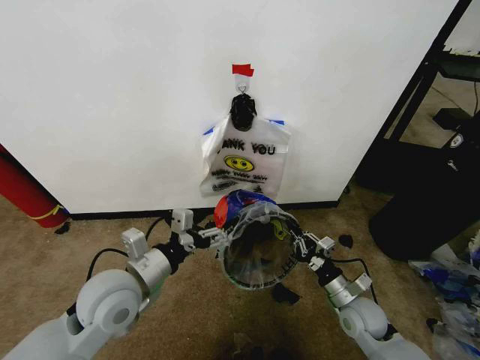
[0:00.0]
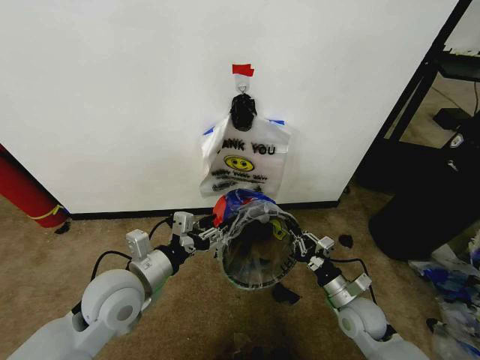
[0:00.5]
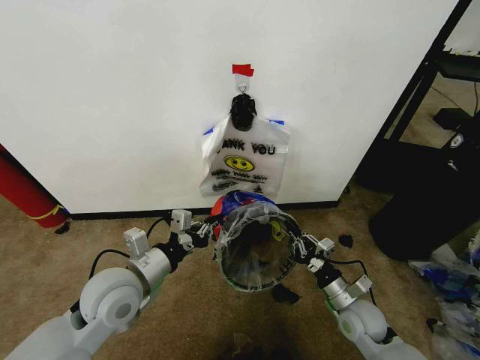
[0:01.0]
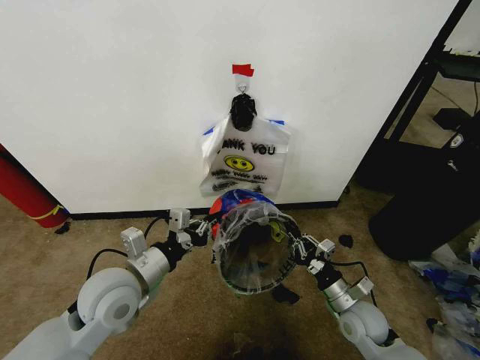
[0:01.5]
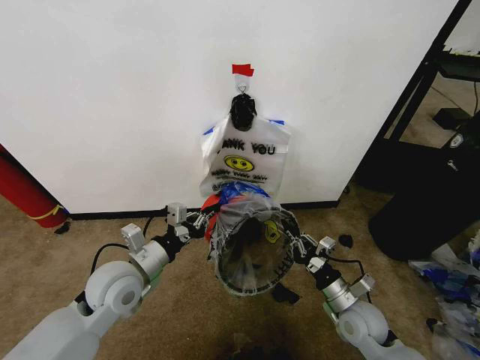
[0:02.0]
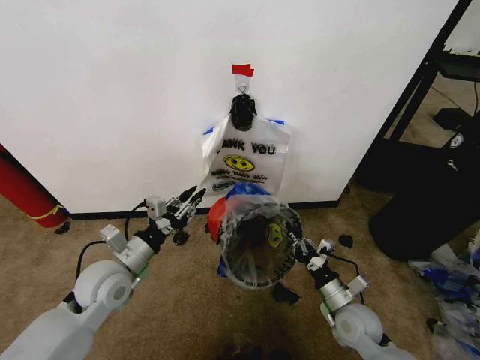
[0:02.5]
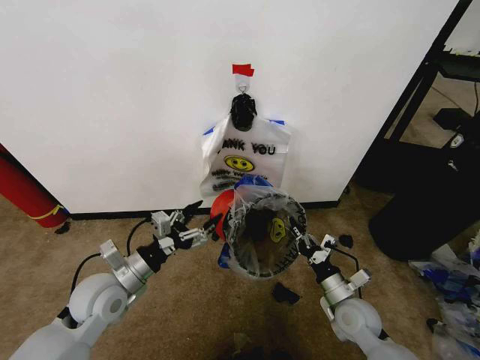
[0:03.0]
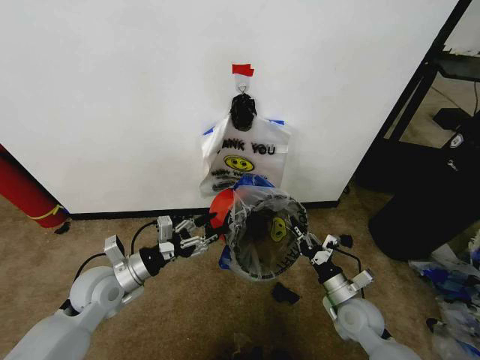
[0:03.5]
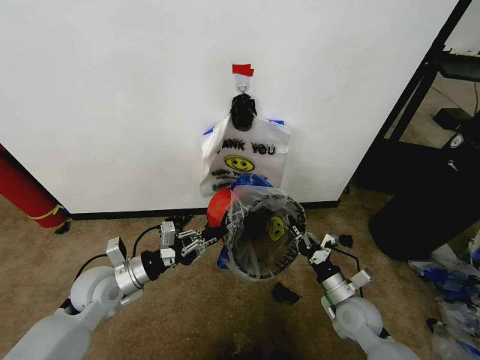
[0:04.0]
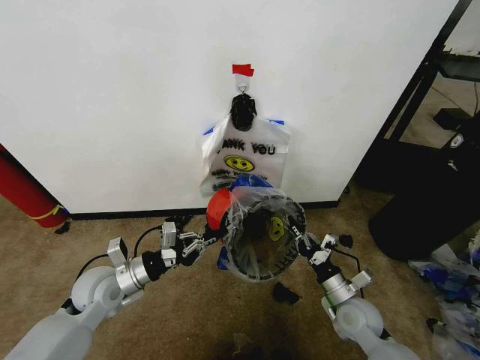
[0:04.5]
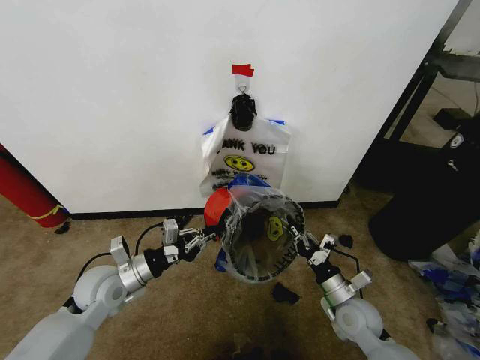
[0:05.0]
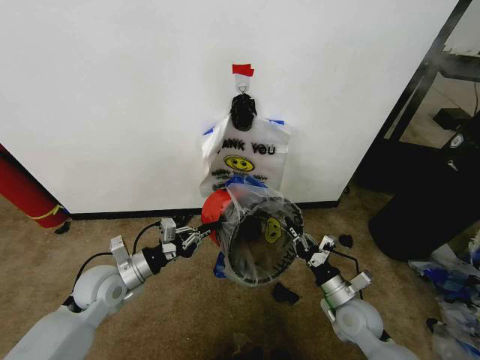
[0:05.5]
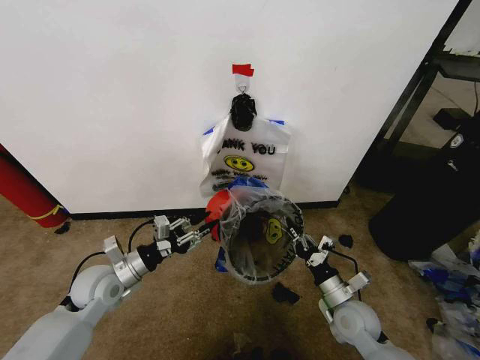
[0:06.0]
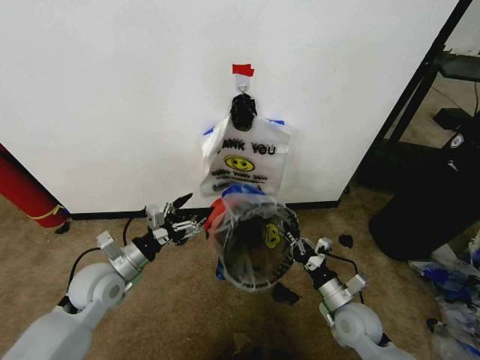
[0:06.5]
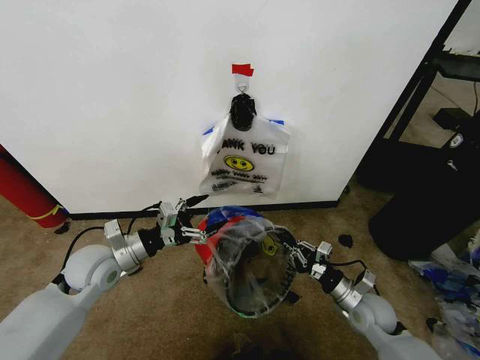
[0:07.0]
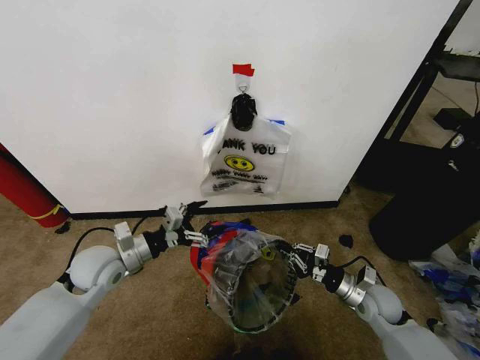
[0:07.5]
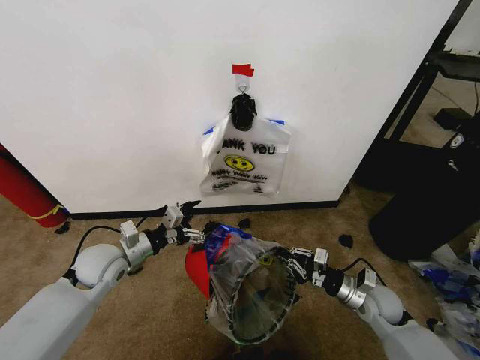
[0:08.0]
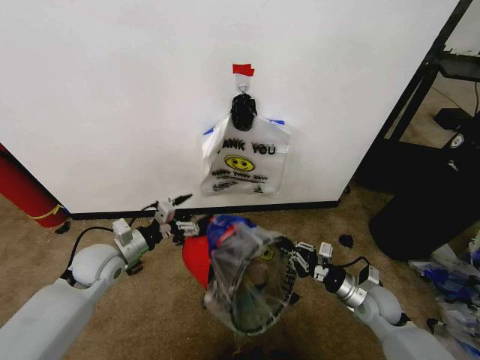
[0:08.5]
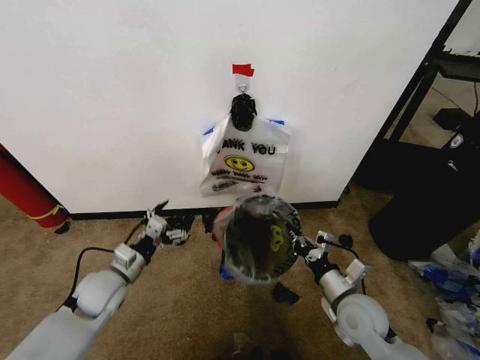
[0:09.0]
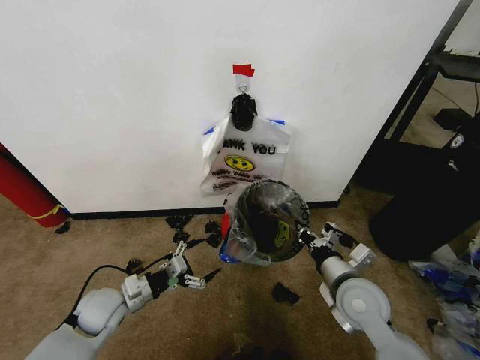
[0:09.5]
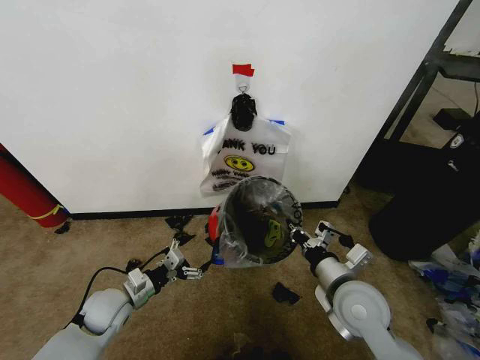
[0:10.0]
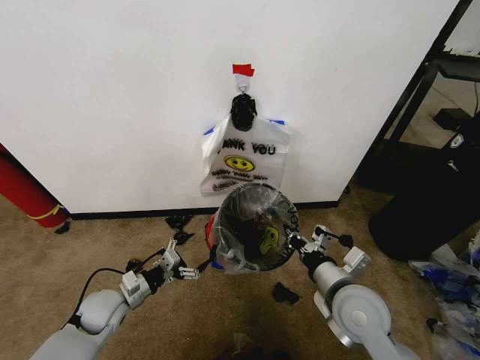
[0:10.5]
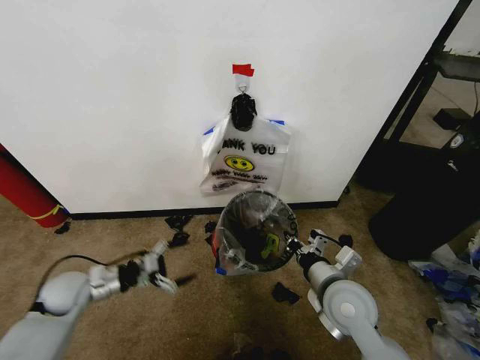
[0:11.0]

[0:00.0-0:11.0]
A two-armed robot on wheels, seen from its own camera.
Task of the whole recording: Pick up the garbage bag from the wall and place it over the trash bin.
0:00.0 to 0:02.0: The left gripper shifts by roughly 5 cm, and closes up.
0:02.0 to 0:03.5: The left gripper goes approximately 5 cm to the left, and opens up.
0:03.5 to 0:05.5: The left gripper closes up.
0:05.5 to 0:07.5: The right gripper goes some 5 cm to the right, while the left gripper opens.
0:07.5 to 0:09.0: The right gripper moves to the left and upward, about 10 cm. The left gripper heads downward, covering roughly 5 cm.
0:09.0 to 0:11.0: The left gripper travels to the left by about 10 cm. Meanwhile the right gripper shifts approximately 5 cm upward.

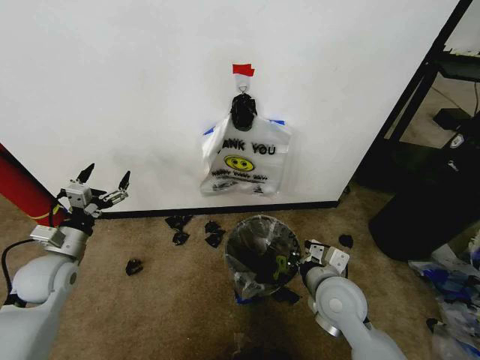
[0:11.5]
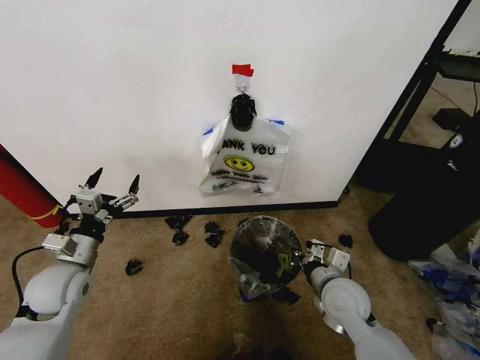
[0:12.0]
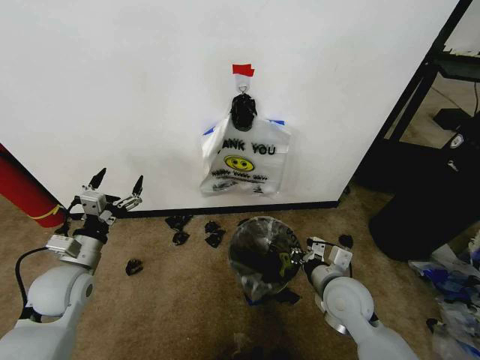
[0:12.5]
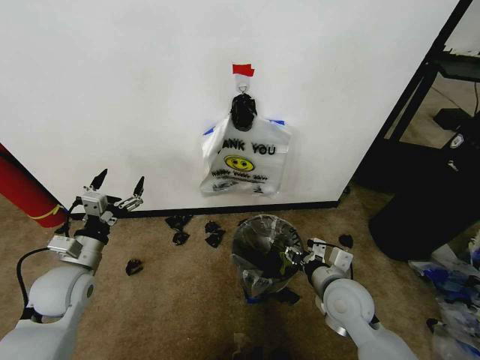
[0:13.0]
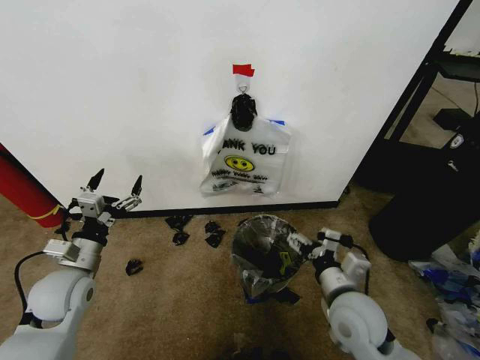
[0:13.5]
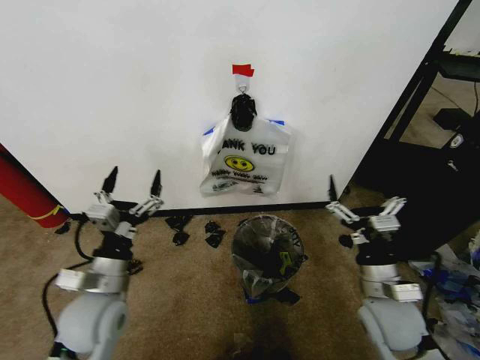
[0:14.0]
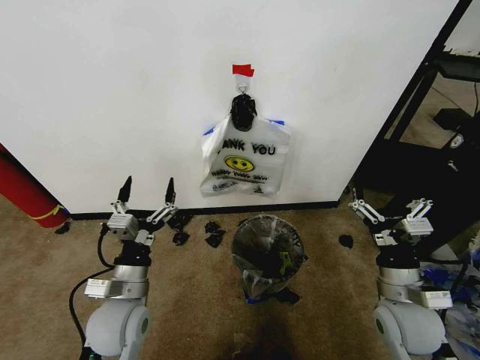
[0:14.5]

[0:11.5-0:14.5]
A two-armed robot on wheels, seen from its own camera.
Task of the whole recording: Pick up the garbage bag from the wall and place it over the trash bin.
0:11.5 to 0:13.0: The right gripper opens up. The left gripper changes place by approximately 5 cm.
0:13.0 to 0:14.5: The right gripper is displaced to the right by approximately 10 cm, and opens its fingers. The left gripper moves to the right and backward, approximately 15 cm.

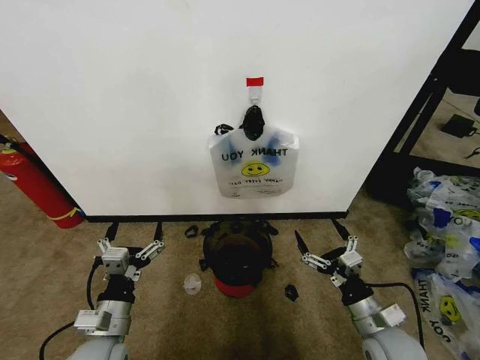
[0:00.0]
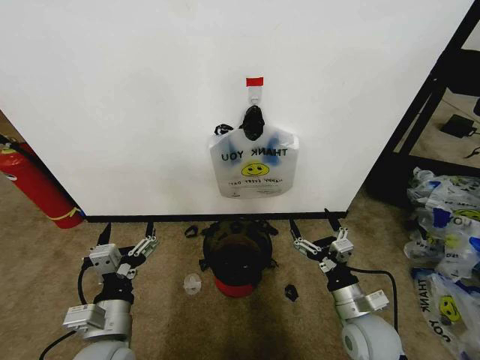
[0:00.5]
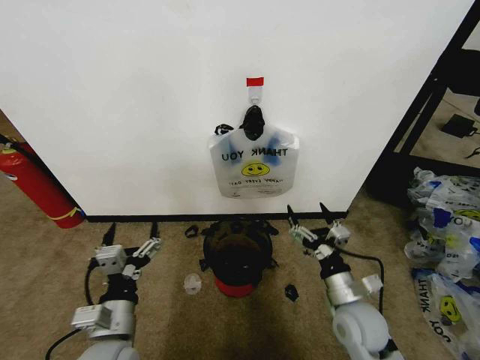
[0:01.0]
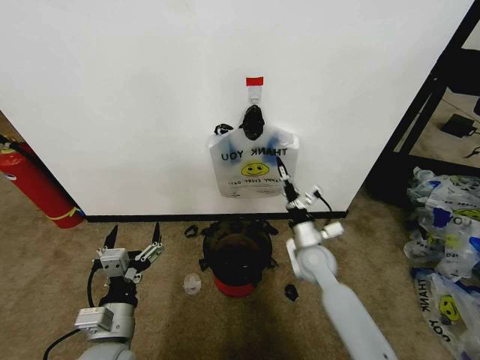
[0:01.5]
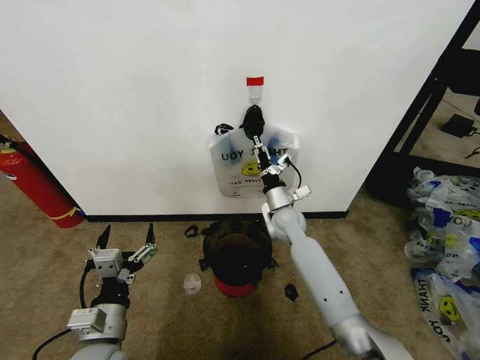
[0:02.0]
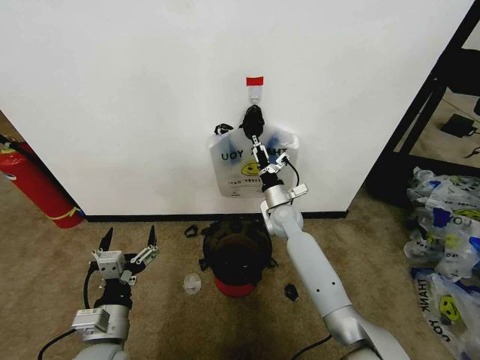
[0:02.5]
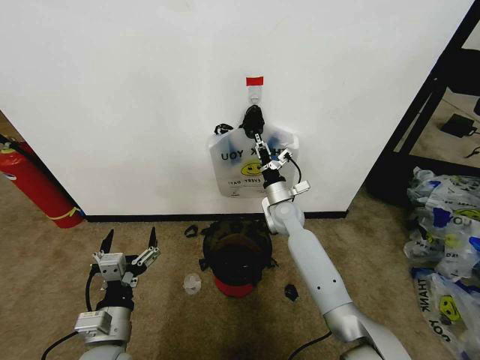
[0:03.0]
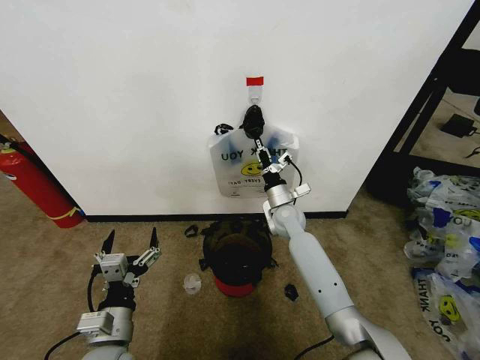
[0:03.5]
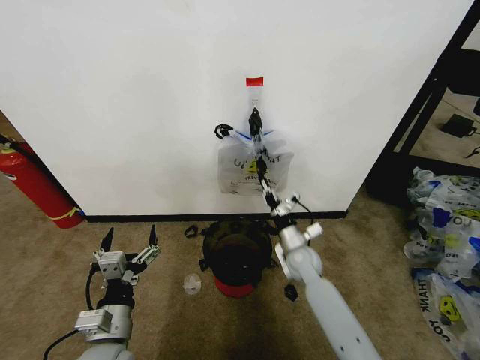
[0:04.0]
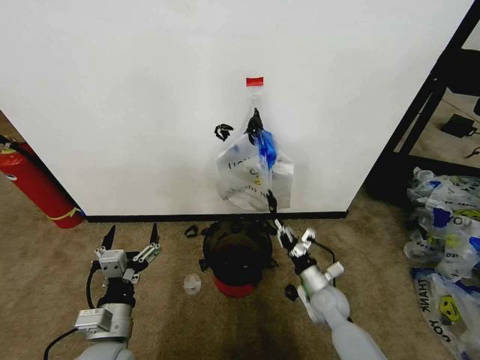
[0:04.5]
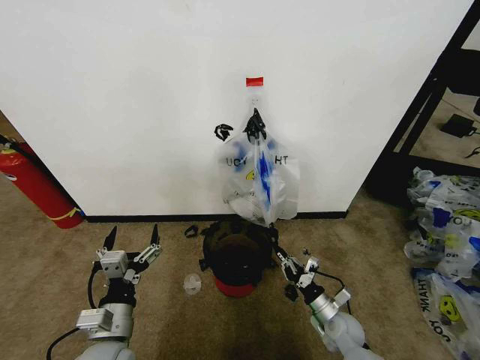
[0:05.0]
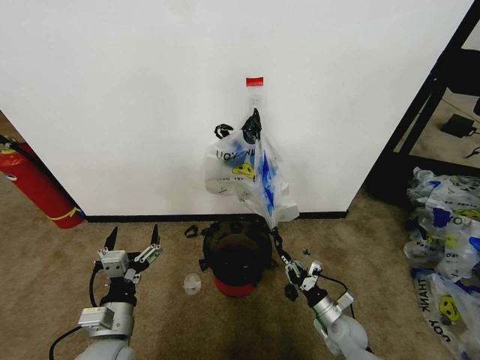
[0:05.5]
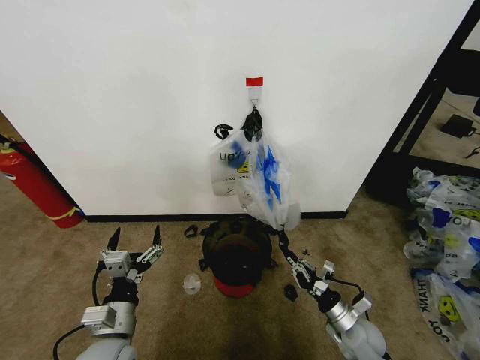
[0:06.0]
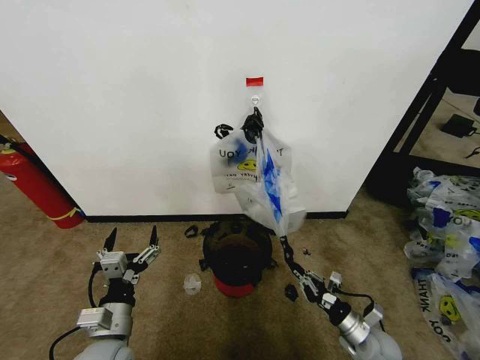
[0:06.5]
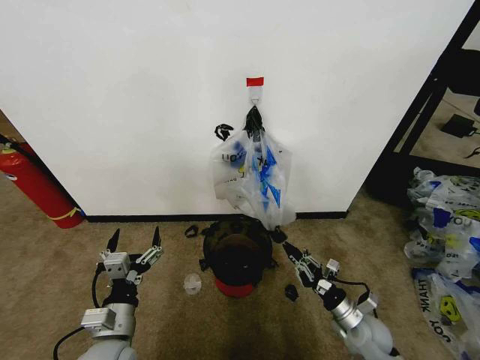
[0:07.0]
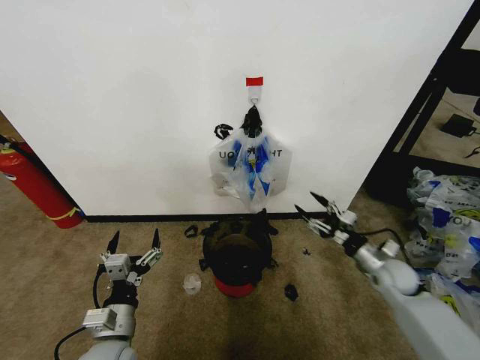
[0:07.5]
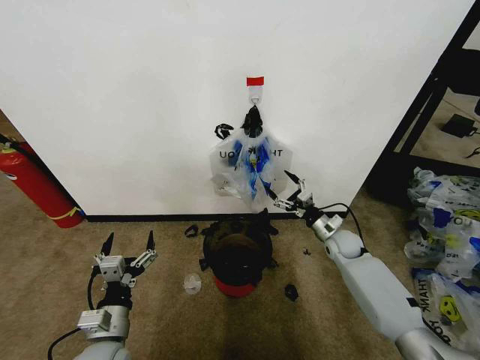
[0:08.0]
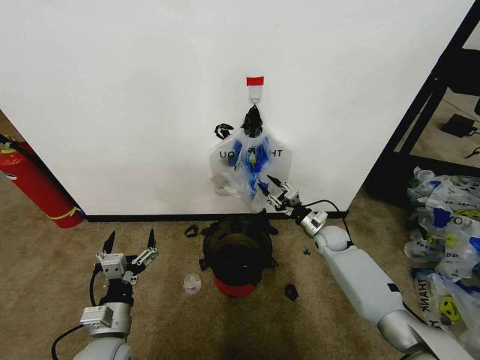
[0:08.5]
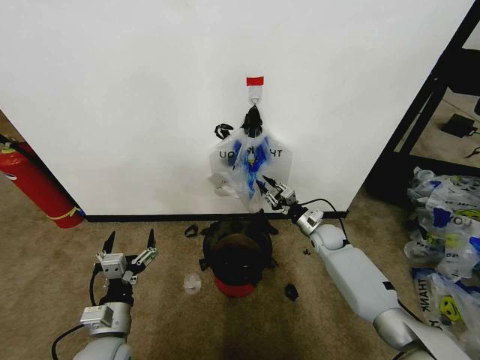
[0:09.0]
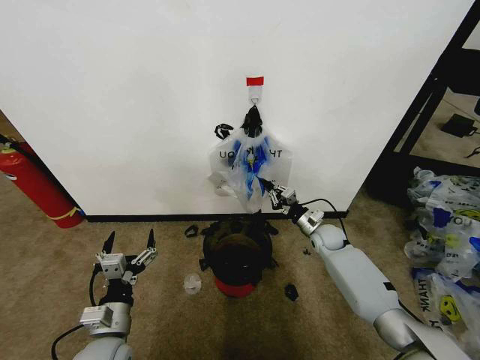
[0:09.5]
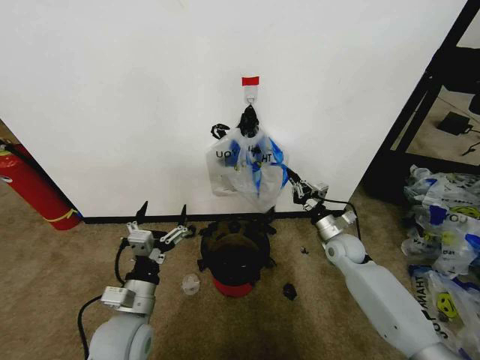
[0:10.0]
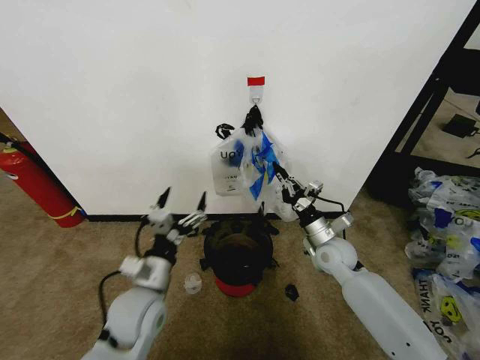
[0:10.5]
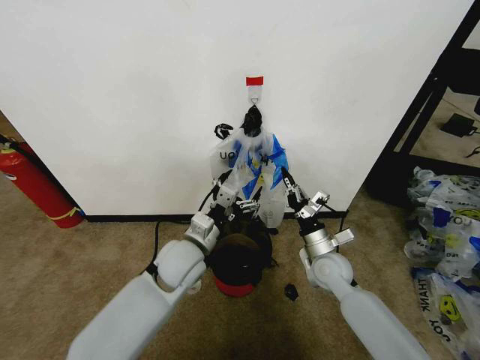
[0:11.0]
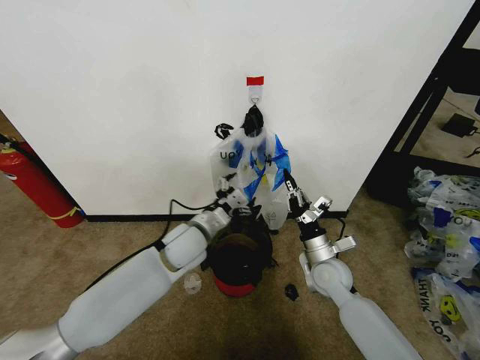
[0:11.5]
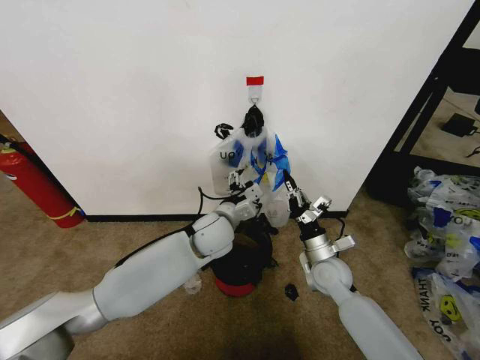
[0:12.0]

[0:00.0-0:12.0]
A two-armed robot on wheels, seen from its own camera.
Task of the whole recording: Pick up the garbage bag from the wall and place it over the trash bin.
0:02.0 to 0:04.0: The right gripper goes approximately 10 cm downward and backward, and closes.
0:04.0 to 0:06.0: The right gripper is displaced backward, to the right and downward by some 25 cm.
0:06.0 to 0:08.0: The right gripper shifts about 20 cm forward, and opens.
0:08.0 to 0:10.0: The left gripper moves some 5 cm; the right gripper closes up.
0:10.0 to 0:12.0: The right gripper is displaced backward and to the left by roughly 10 cm; the left gripper shifts approximately 25 cm forward and to the right.
